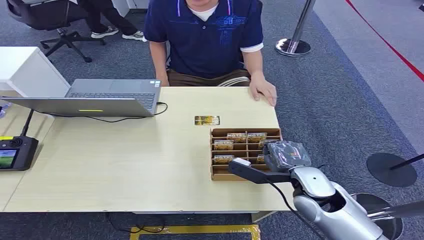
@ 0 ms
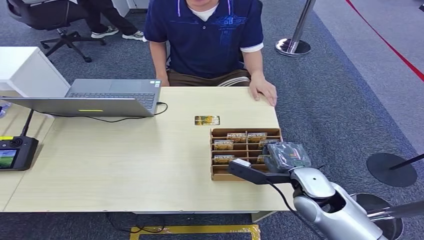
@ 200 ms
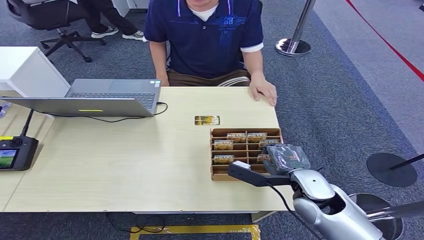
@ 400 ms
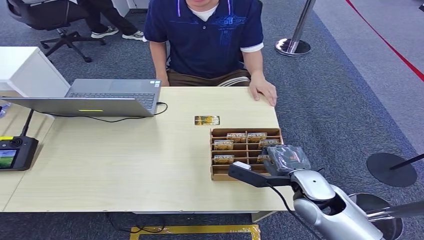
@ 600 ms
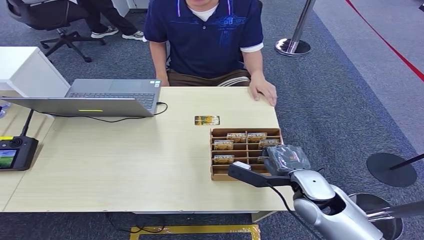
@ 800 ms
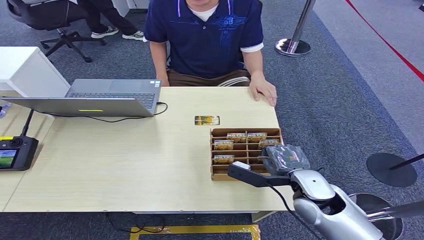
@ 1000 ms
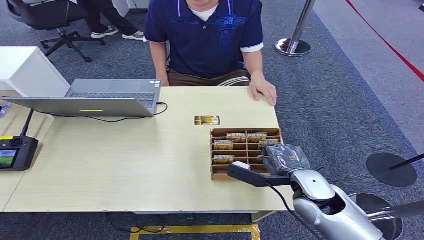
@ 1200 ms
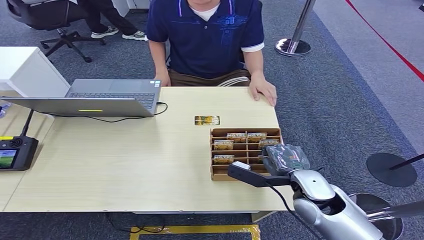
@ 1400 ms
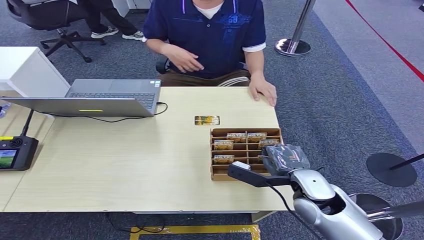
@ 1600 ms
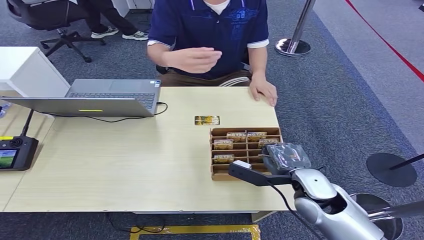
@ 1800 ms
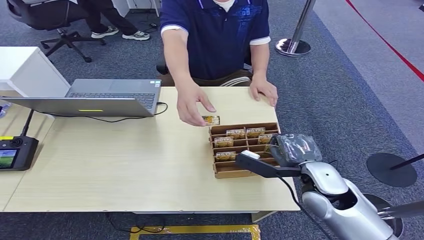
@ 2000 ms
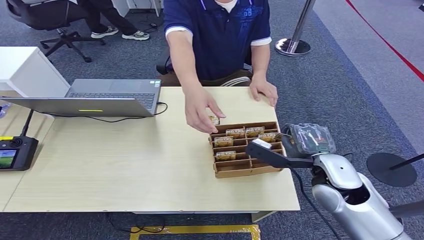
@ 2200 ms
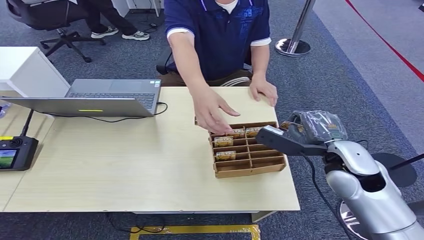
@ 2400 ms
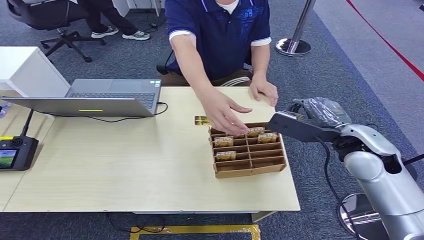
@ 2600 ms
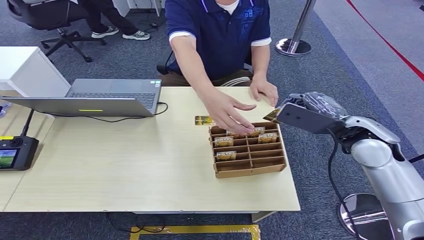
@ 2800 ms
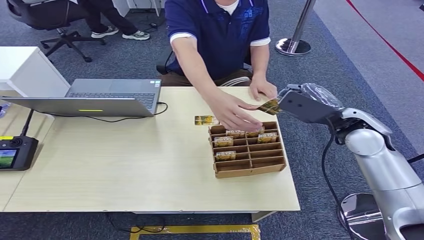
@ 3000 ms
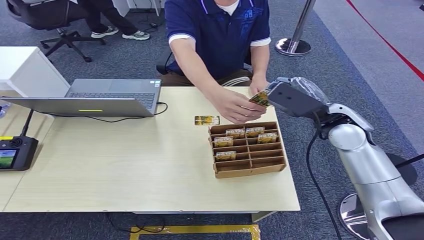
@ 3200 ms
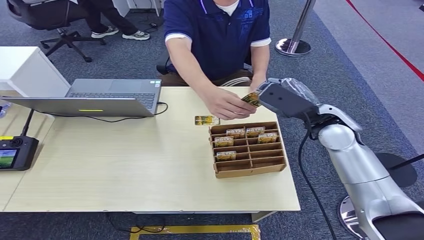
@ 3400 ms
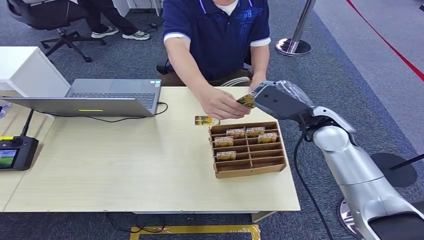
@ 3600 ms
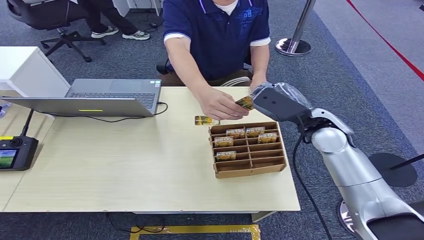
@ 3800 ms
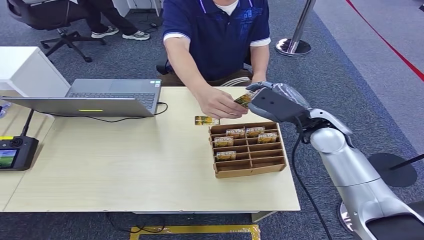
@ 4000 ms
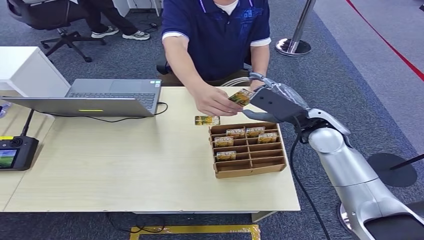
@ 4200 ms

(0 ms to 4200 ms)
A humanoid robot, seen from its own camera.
Step, 0 ms - 2200 ms: Pick up the key card from the card box.
Step, 2400 ms - 4200 ms: Hand the key card to the target.
2800 ms - 4200 ms: The right hand moves to the left, about 5 cm.
